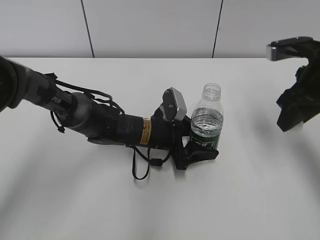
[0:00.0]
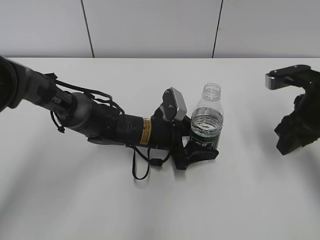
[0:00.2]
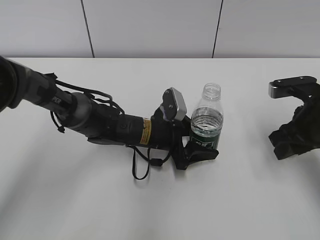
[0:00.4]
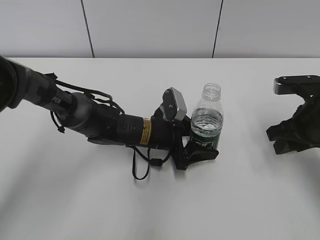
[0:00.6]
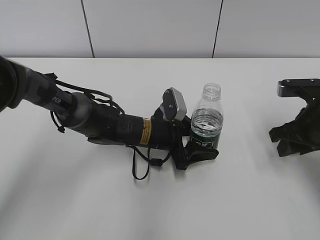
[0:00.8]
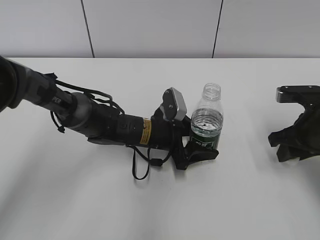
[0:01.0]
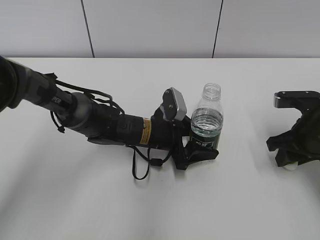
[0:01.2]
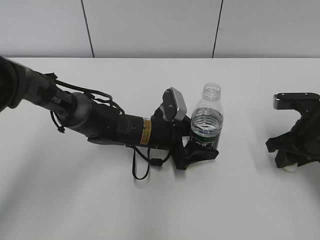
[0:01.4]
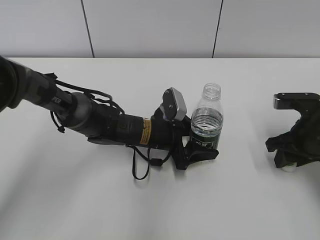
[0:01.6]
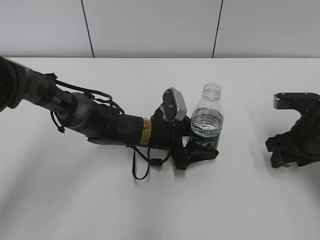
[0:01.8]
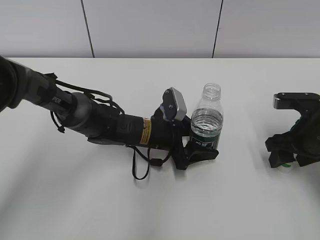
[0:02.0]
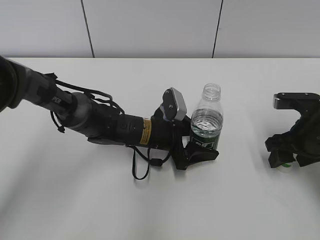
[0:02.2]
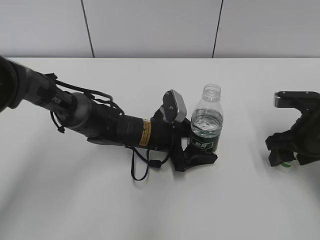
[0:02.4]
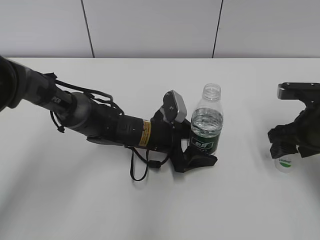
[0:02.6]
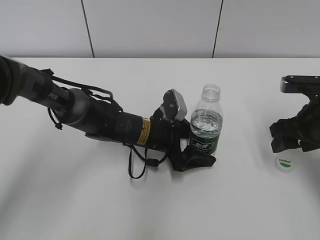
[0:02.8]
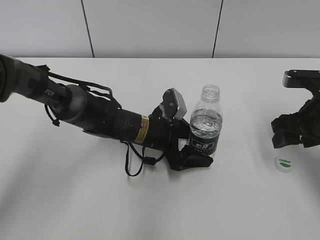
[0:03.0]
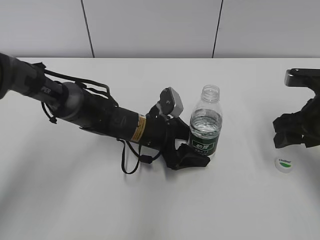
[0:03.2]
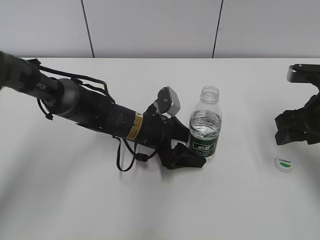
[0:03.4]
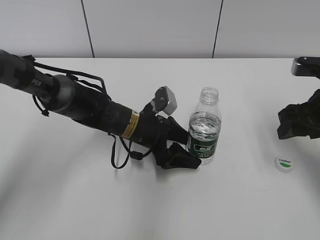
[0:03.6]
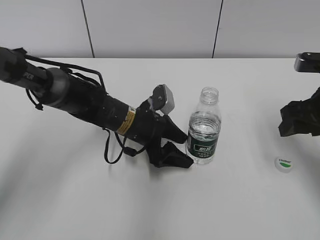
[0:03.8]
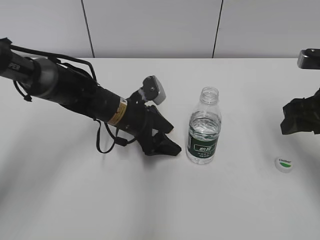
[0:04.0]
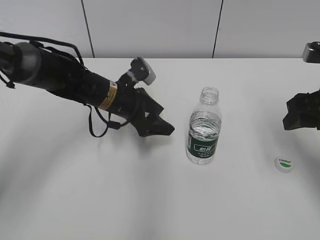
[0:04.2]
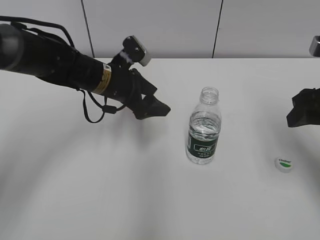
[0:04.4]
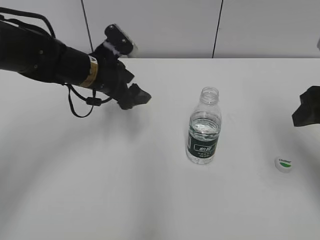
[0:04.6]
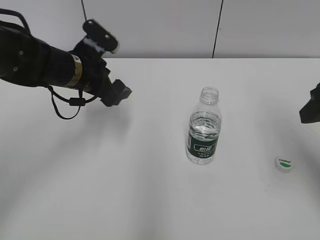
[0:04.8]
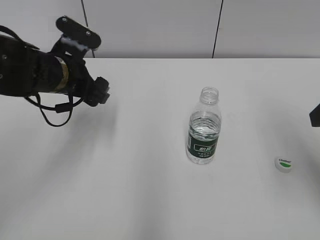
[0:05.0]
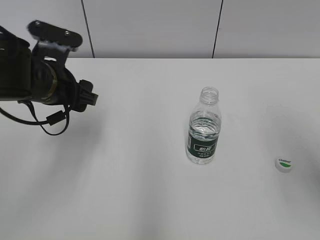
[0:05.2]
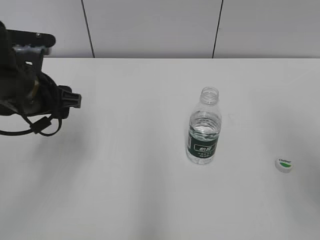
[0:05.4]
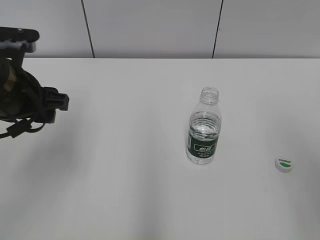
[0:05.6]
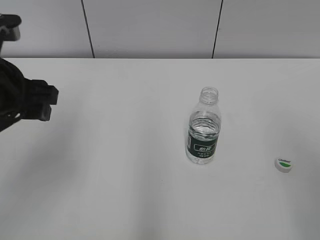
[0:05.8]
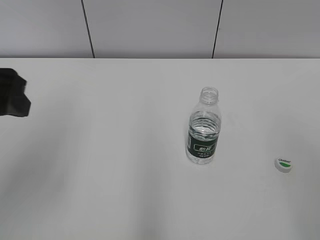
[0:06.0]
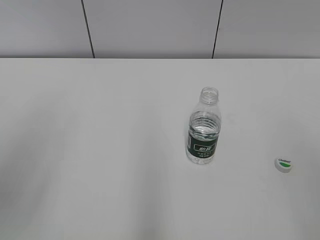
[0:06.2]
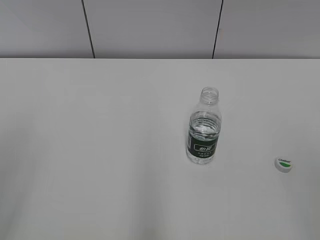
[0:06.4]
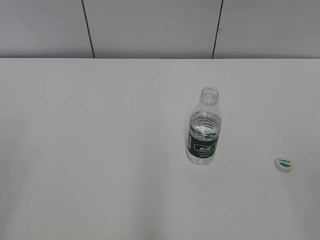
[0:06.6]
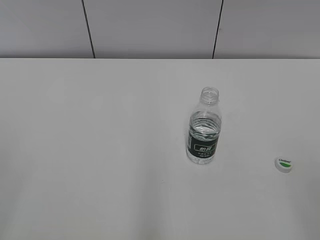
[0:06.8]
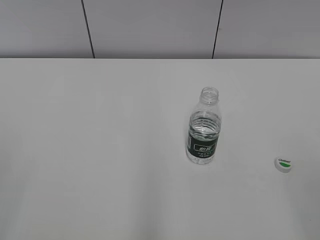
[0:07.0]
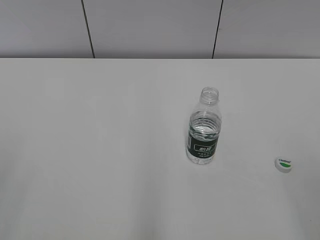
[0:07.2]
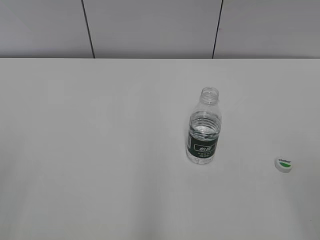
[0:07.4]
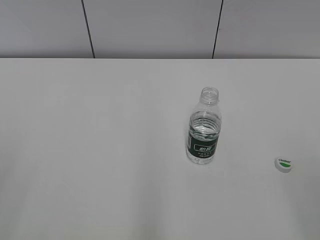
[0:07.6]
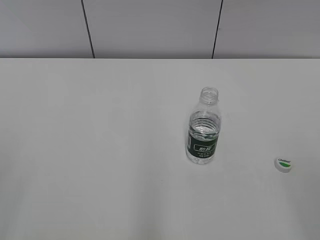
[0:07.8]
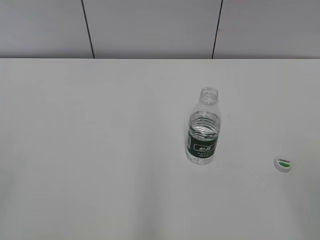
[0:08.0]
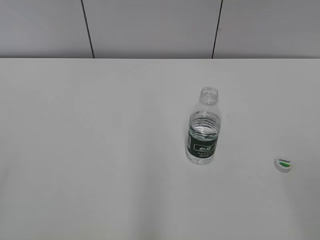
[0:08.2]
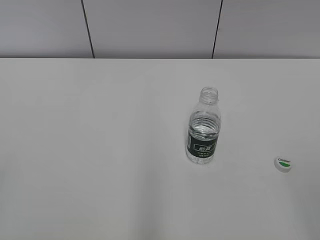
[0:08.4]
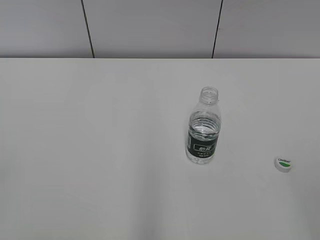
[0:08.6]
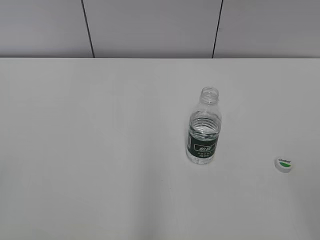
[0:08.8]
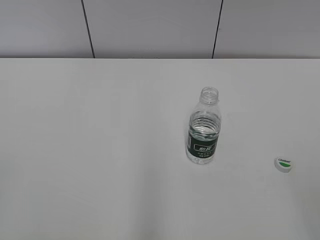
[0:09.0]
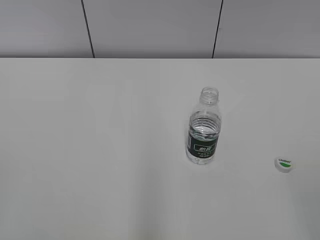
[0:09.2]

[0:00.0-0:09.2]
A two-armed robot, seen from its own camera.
Step, 0:00.0 to 0:02.4: Place the bottle cap on the table with the right hand.
Step, 0:02.6 to 0:03.6: Place the C'estbon with the left hand.
0:00.0 to 0:01.6: The right gripper moves downward, approximately 10 cm.
0:01.6 to 0:03.0: The right gripper opens its fingers.
0:03.0 to 0:04.6: The left gripper shifts approximately 15 cm upward and to the left. The right gripper is displaced upward by roughly 10 cm.
0:04.6 to 0:06.2: The left gripper goes approximately 30 cm backward, upward and to the left, while the right gripper goes roughly 25 cm backward and upward.

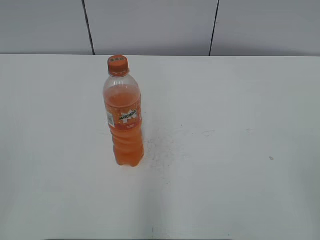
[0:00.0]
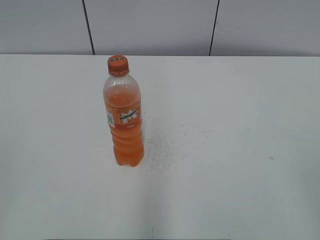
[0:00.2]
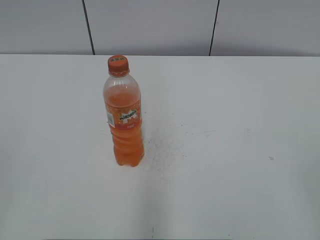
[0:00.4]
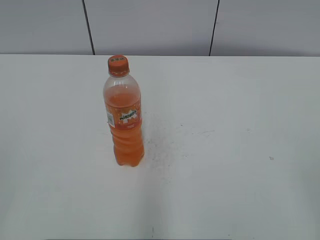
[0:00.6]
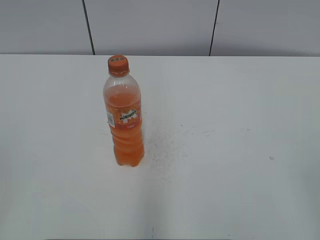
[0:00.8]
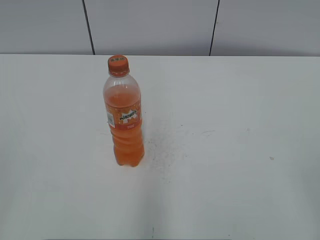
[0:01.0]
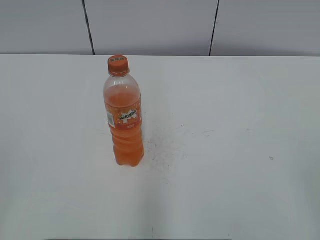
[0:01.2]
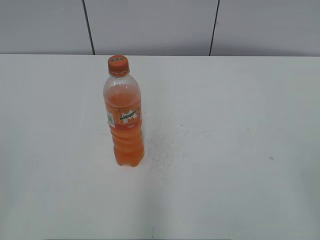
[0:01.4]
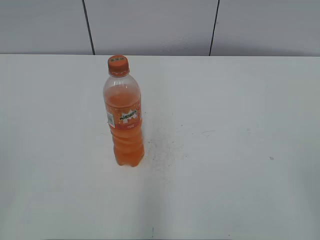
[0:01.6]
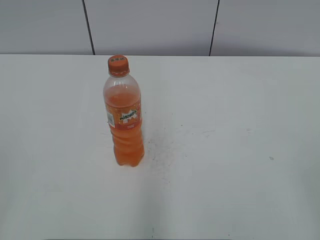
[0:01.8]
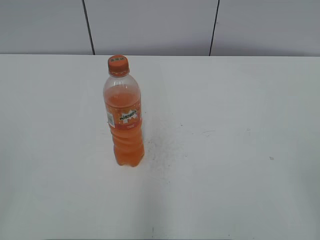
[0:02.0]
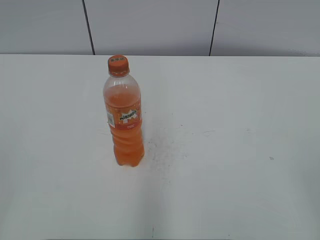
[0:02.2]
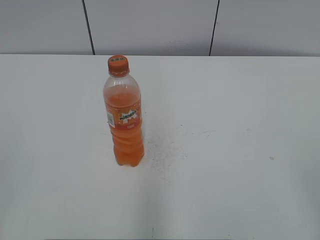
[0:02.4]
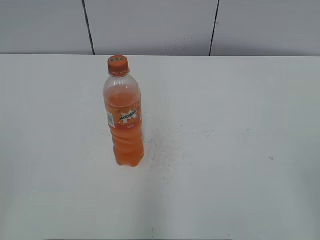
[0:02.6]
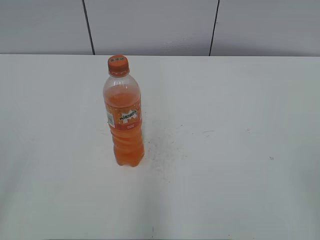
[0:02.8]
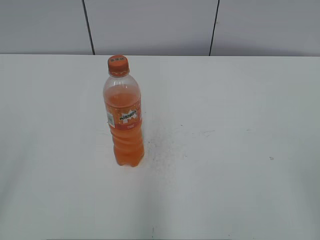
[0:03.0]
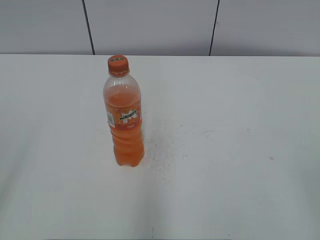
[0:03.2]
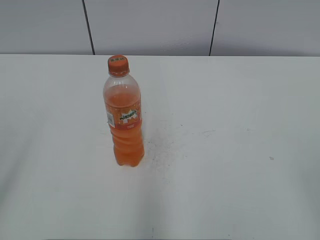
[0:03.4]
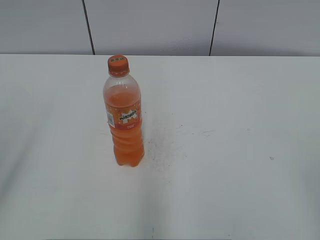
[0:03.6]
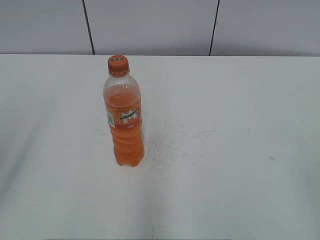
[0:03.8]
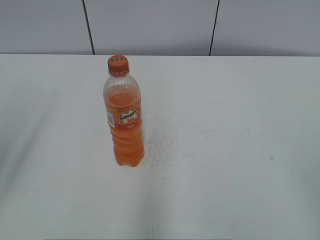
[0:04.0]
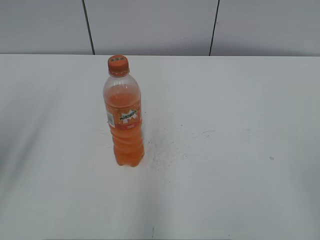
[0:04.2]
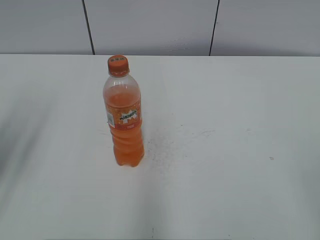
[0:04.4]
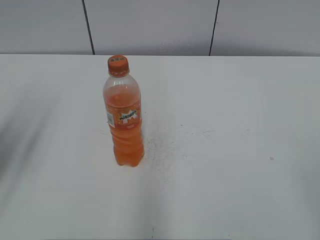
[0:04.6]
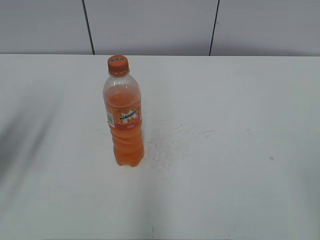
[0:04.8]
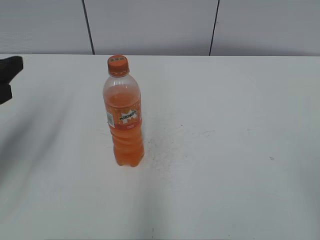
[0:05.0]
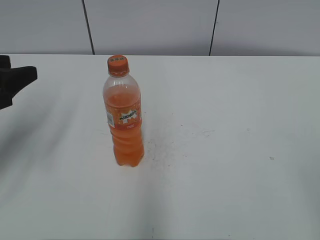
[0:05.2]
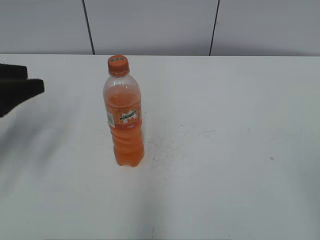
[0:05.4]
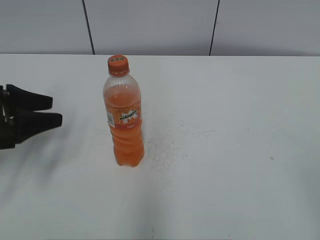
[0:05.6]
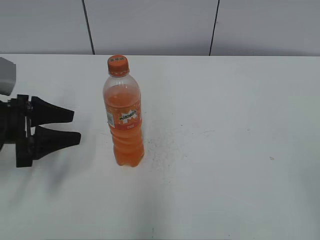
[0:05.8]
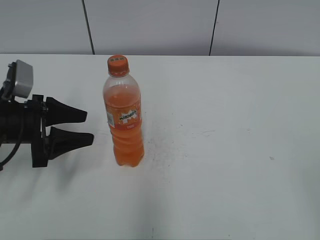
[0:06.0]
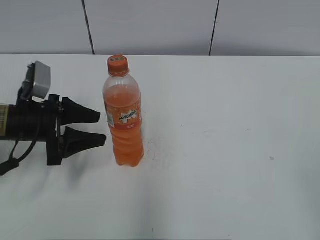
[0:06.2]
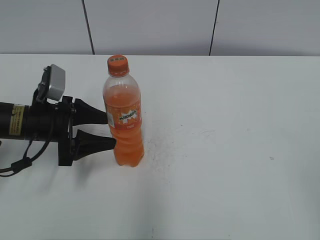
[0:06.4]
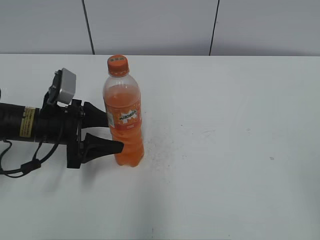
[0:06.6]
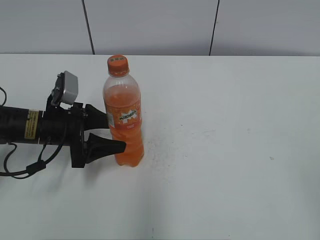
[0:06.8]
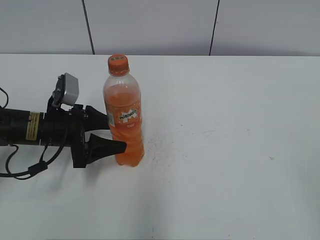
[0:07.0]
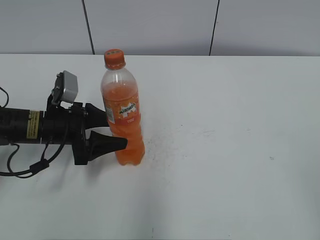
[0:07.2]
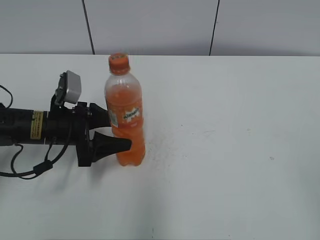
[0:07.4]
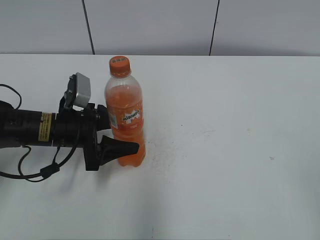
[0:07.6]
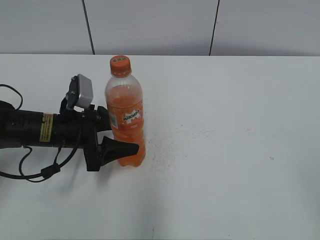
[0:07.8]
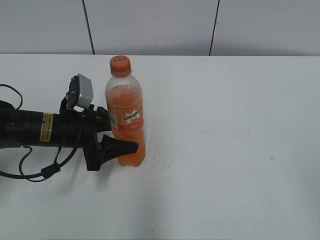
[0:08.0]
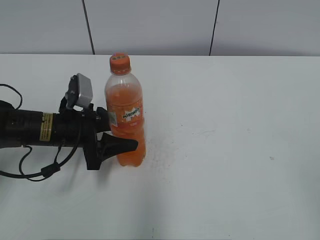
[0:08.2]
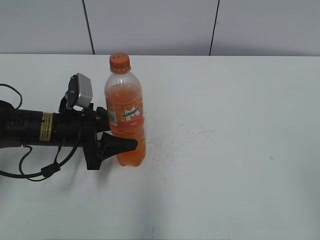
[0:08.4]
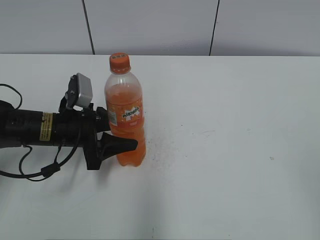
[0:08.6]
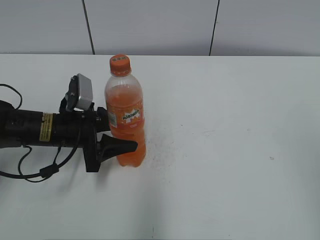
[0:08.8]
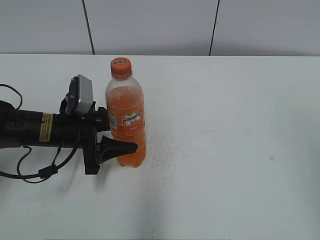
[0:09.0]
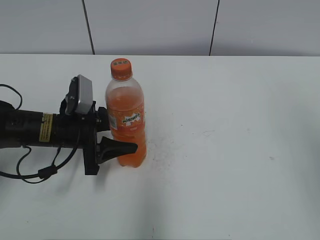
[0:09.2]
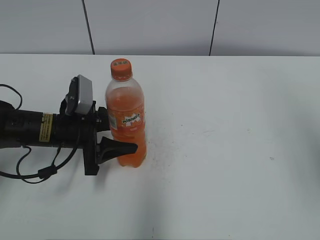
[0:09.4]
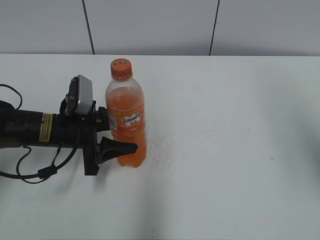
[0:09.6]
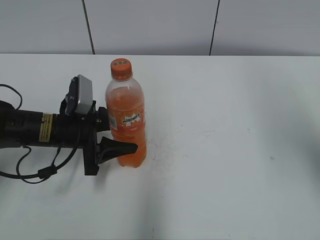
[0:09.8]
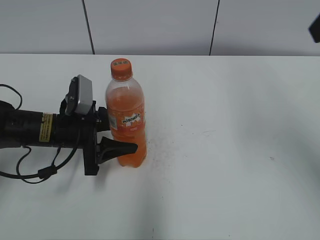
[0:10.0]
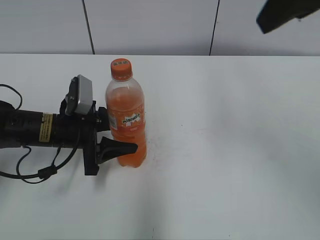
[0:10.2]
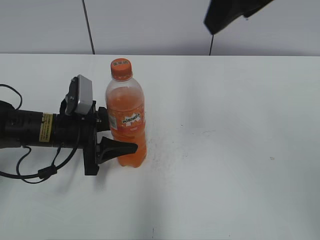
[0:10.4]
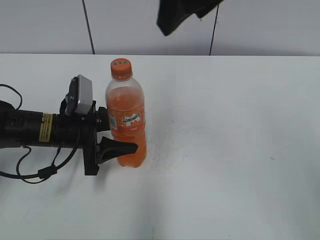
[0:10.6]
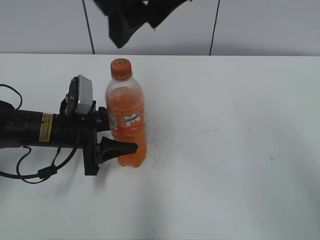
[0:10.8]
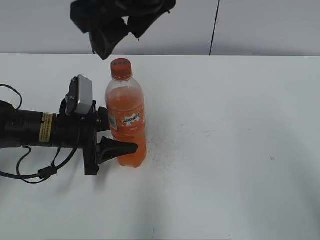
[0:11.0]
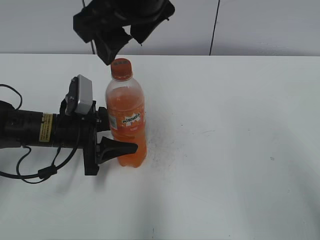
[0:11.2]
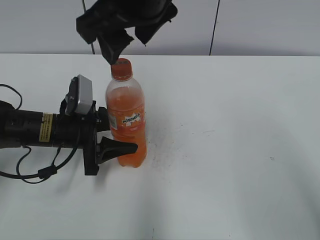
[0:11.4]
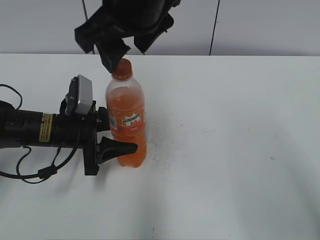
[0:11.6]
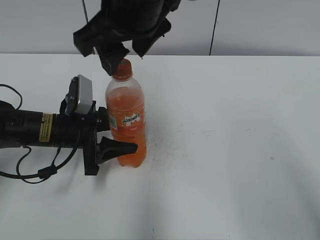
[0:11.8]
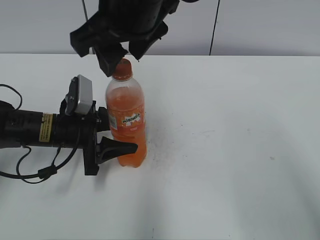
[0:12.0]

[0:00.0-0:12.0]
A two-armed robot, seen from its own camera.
Step, 0:00.0 to 0:08.6: Grab the Mirinda with the left hand.
0:03.0 to 0:04.4: The left gripper travels forward by roughly 20 cm.
0:04.4 to 0:06.0: The left gripper heads downward and forward, covering about 15 cm.
0:06.0 to 0:07.6: The left gripper heads to the right, covering approximately 5 cm.
0:07.6 to 0:09.0: The right gripper heads upward, covering about 10 cm.
0:09.0 to 0:10.4: The right gripper moves forward and to the left, about 25 cm.
0:10.4 to 0:12.0: The right gripper is displaced to the left and downward by about 15 cm.

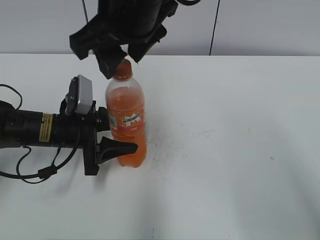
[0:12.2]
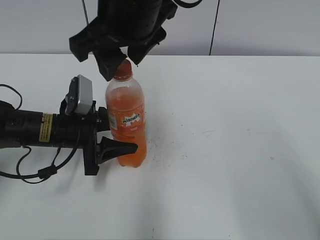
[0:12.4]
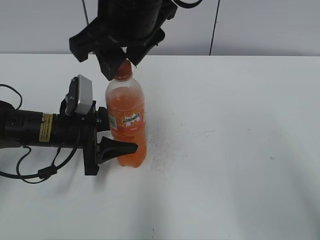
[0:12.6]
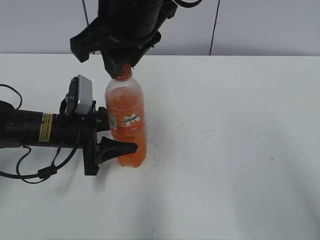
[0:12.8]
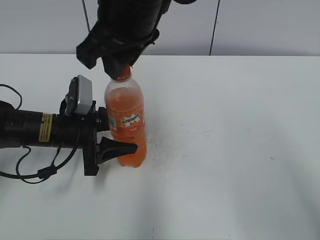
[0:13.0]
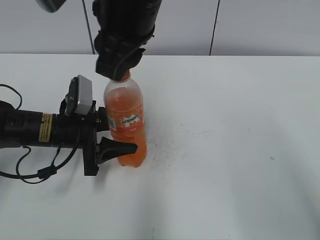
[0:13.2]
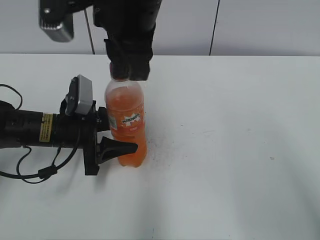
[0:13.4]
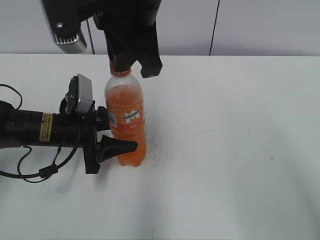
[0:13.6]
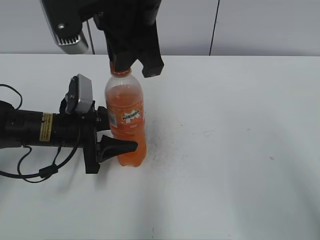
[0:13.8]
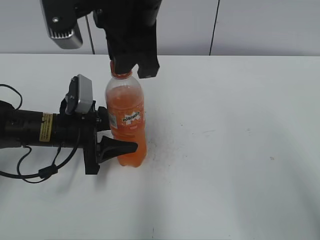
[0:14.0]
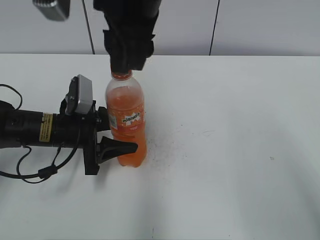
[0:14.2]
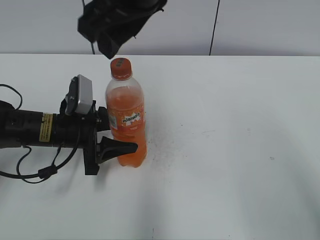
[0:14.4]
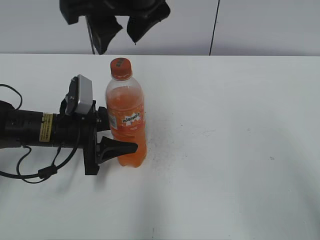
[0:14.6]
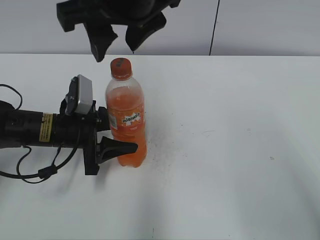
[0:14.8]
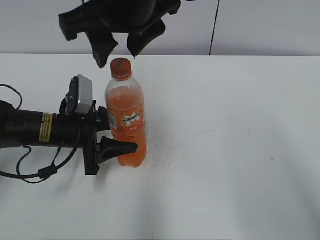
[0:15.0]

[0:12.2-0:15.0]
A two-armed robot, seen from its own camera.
0:12.2 to 0:13.6: The right gripper closes.
0:13.6 to 0:15.0: The right gripper opens up.
